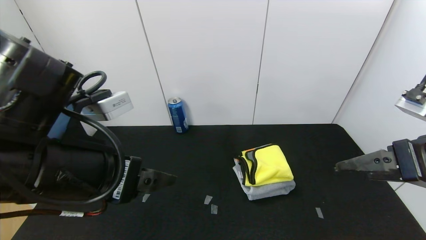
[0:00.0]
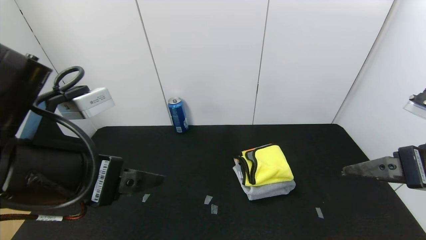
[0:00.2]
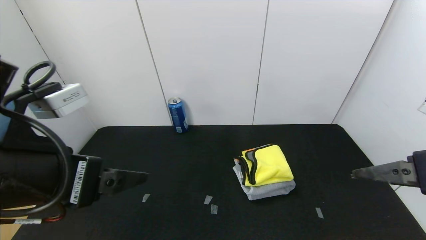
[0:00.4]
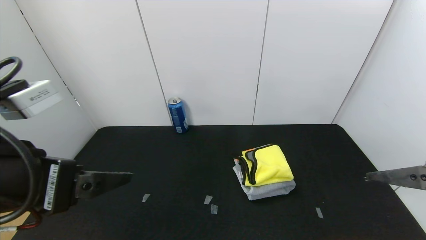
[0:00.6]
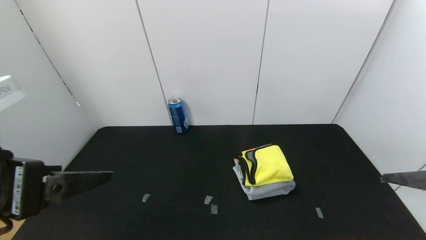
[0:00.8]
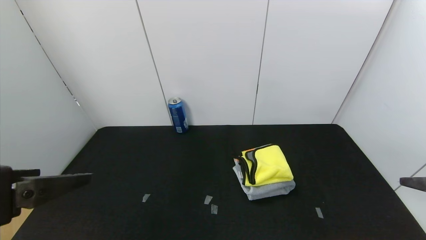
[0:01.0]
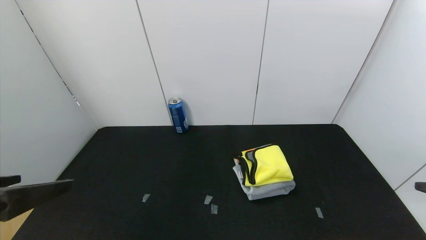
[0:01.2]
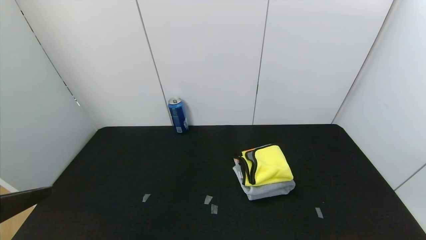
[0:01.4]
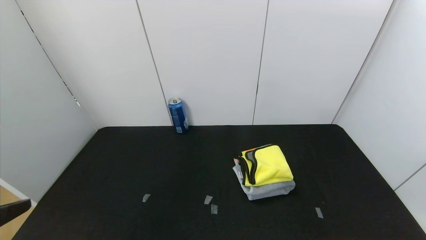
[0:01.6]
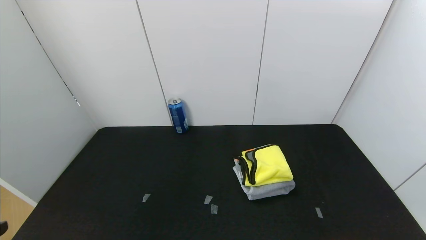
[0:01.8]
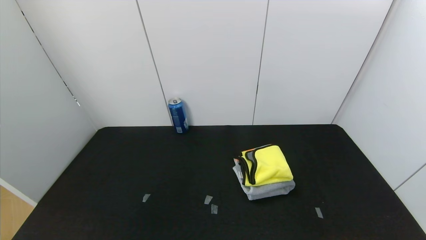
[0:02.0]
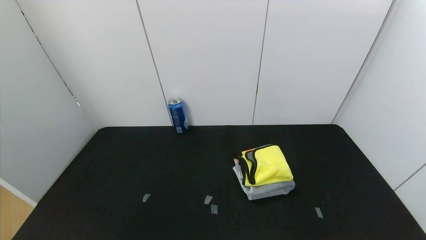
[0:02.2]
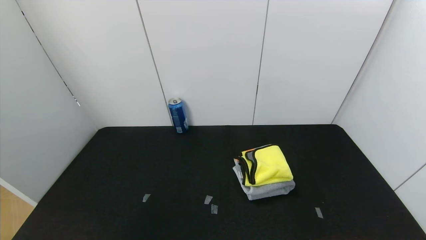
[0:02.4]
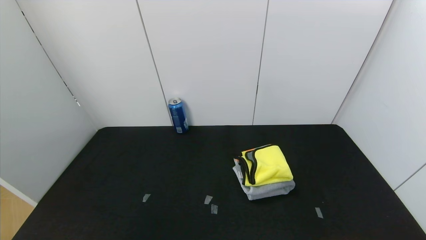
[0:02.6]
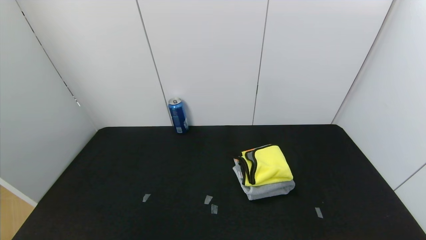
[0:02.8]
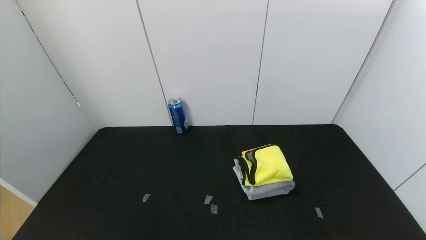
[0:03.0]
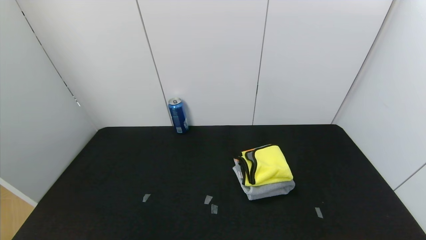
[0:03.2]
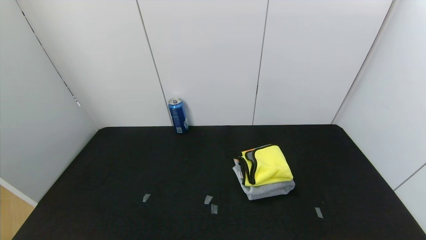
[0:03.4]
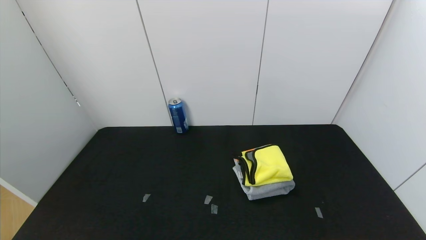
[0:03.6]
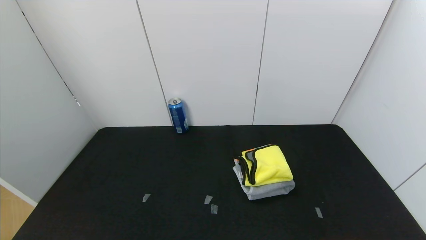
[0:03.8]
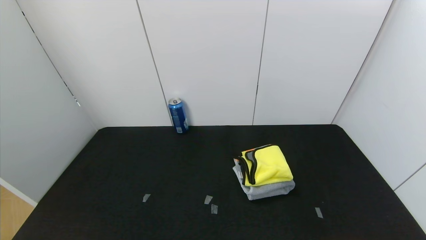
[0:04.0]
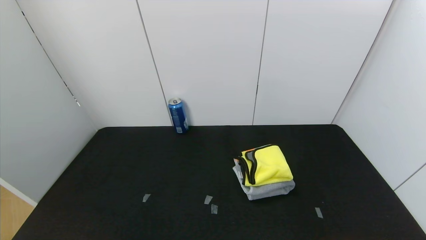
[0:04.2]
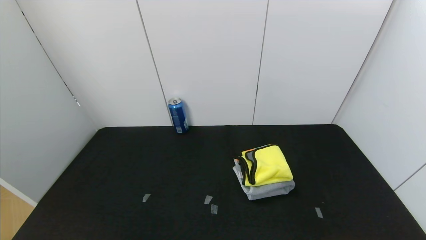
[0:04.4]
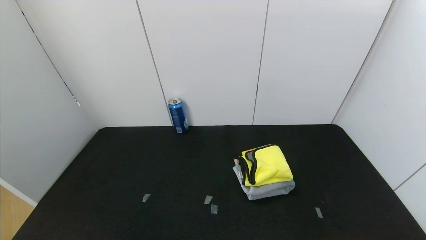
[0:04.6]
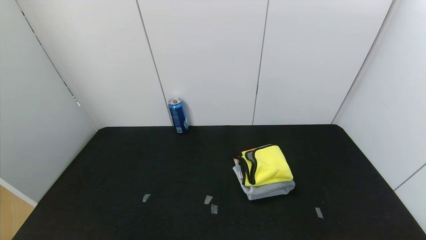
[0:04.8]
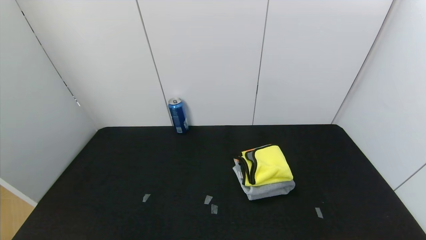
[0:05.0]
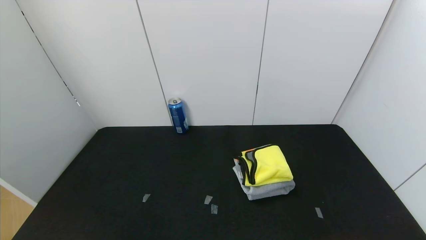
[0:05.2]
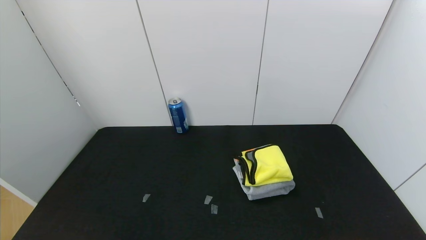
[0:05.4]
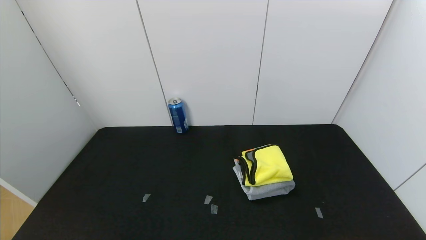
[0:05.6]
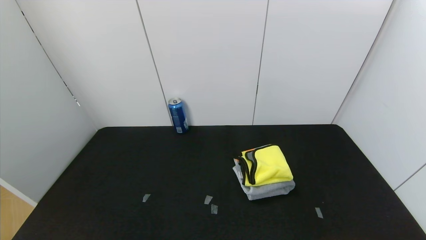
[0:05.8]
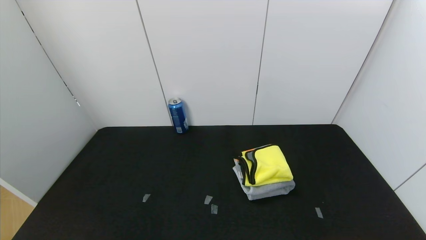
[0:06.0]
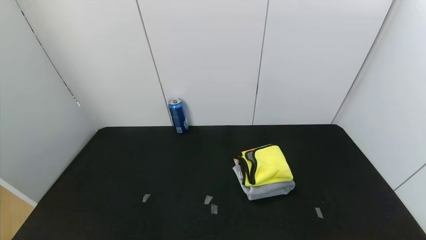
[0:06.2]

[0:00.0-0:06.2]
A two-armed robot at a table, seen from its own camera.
Task of the whole recording: Use the gripper to fold the yellow towel and grey towel in half twice,then put the yellow towel on the grey towel.
0:00.0 to 0:01.6: The left gripper moves backward and to the left, approximately 15 cm, while the right gripper heads backward and to the right, covering approximately 15 cm.
